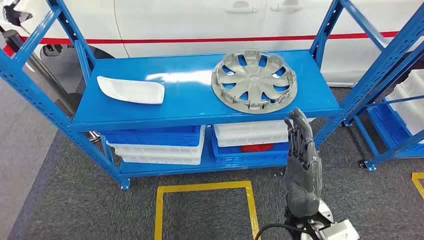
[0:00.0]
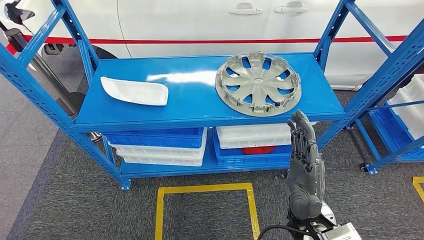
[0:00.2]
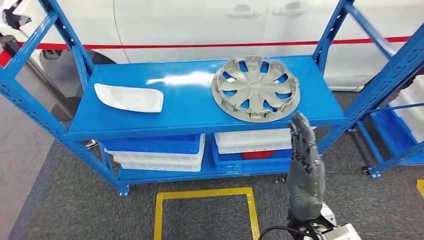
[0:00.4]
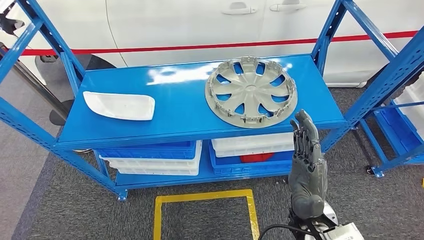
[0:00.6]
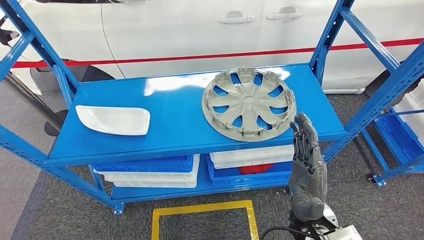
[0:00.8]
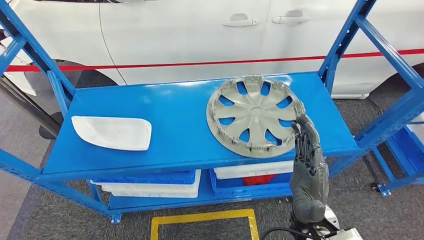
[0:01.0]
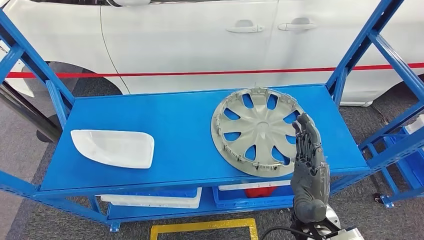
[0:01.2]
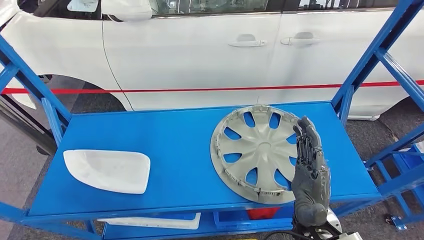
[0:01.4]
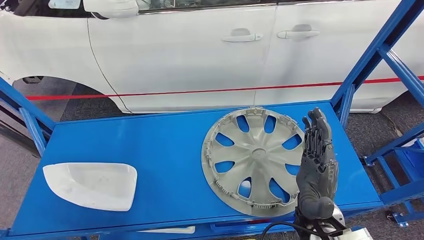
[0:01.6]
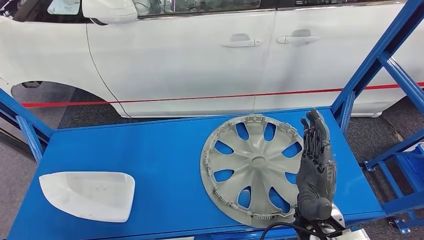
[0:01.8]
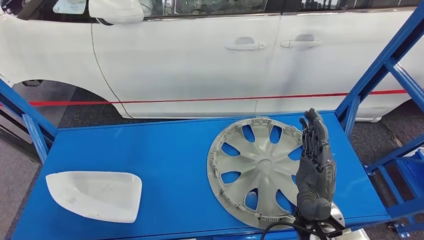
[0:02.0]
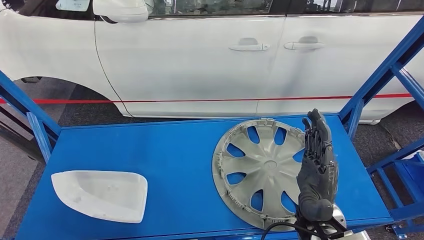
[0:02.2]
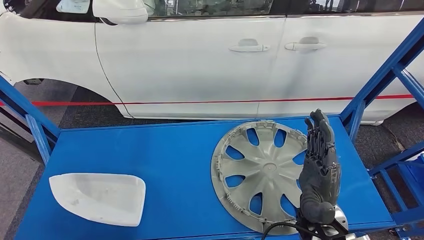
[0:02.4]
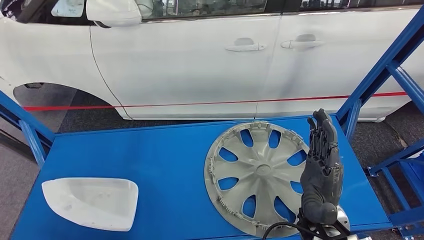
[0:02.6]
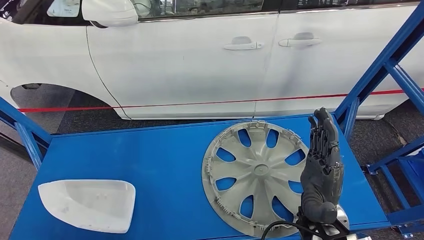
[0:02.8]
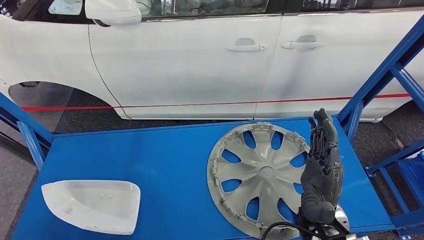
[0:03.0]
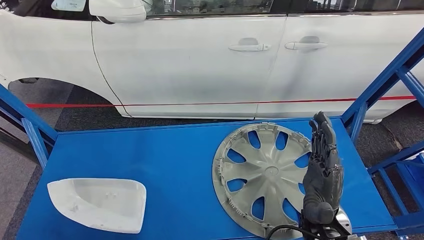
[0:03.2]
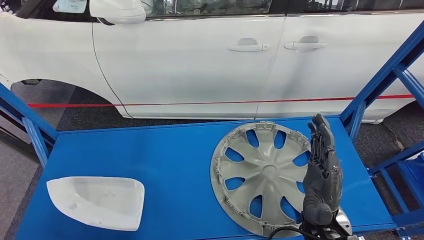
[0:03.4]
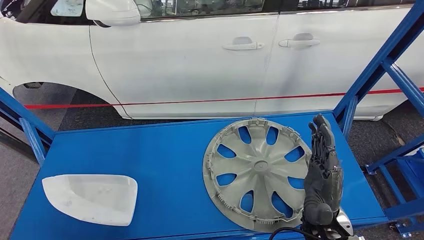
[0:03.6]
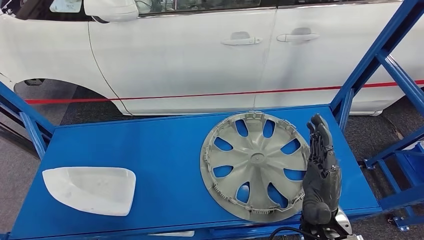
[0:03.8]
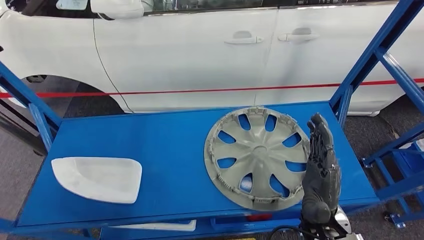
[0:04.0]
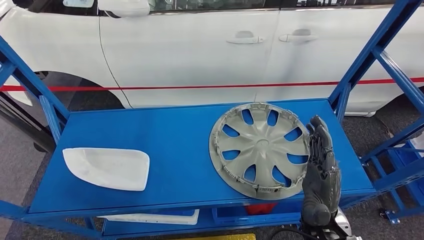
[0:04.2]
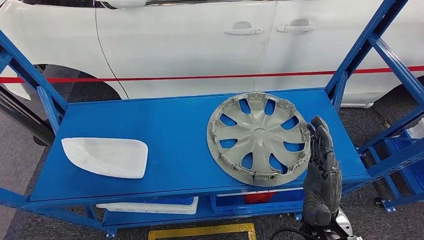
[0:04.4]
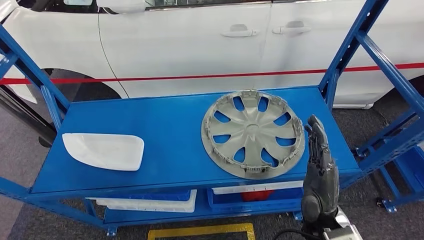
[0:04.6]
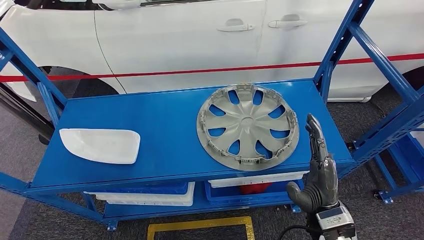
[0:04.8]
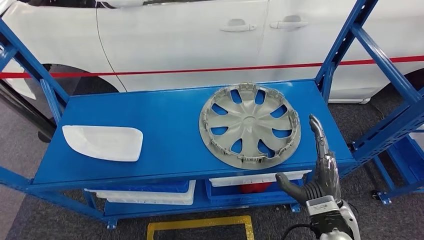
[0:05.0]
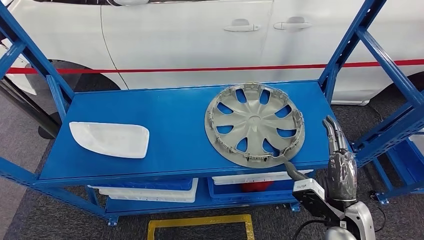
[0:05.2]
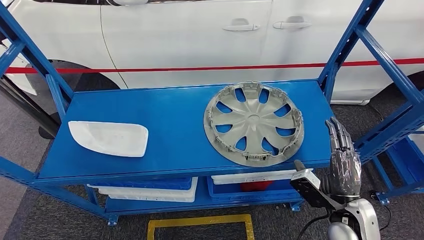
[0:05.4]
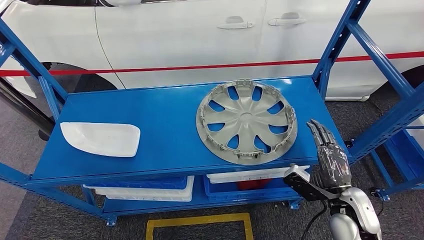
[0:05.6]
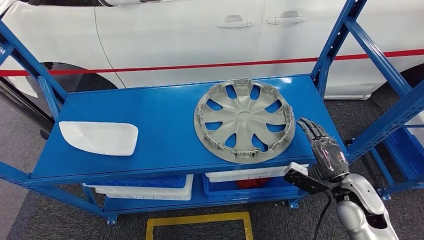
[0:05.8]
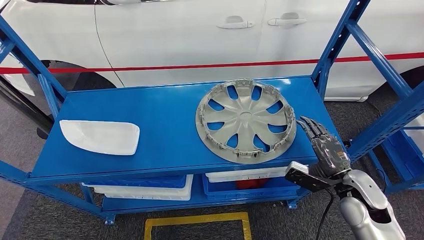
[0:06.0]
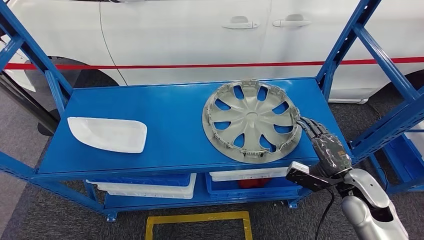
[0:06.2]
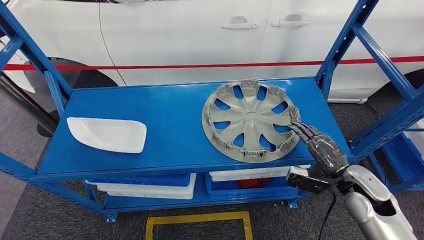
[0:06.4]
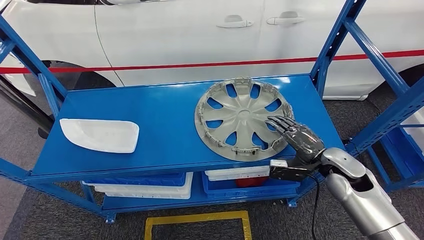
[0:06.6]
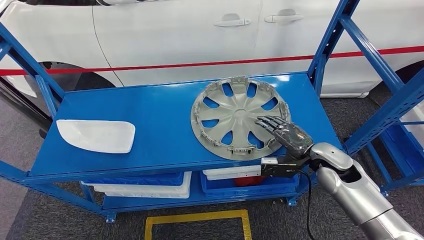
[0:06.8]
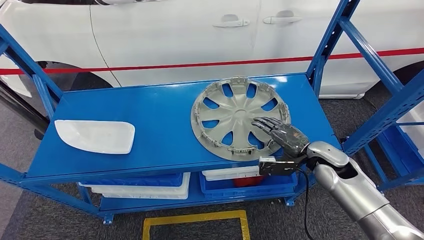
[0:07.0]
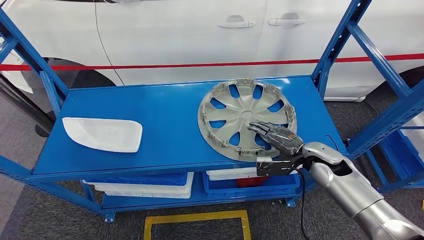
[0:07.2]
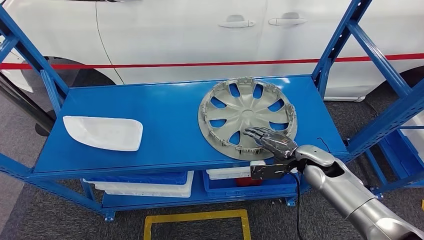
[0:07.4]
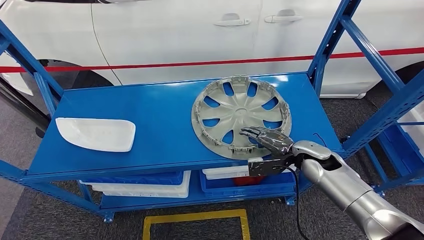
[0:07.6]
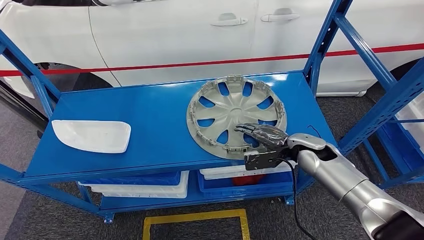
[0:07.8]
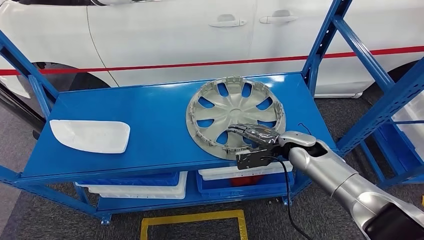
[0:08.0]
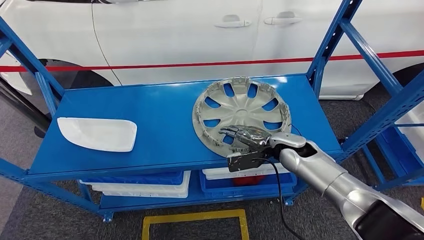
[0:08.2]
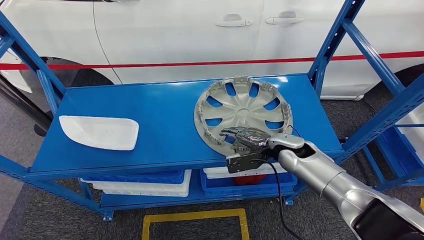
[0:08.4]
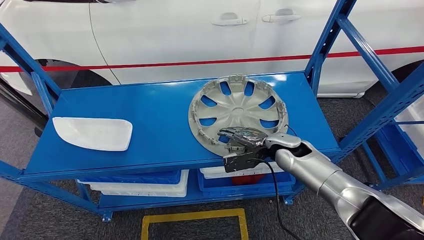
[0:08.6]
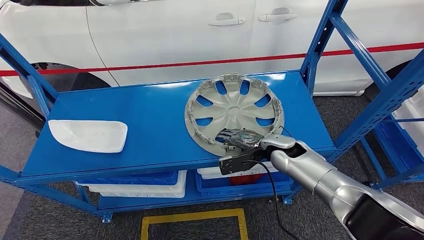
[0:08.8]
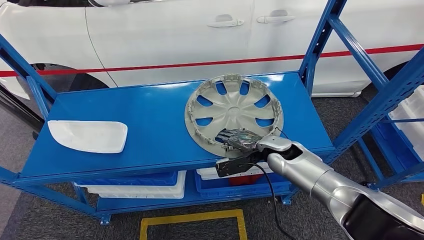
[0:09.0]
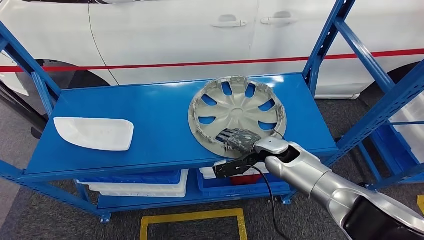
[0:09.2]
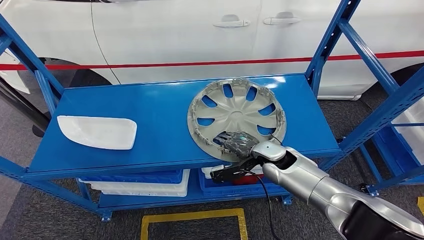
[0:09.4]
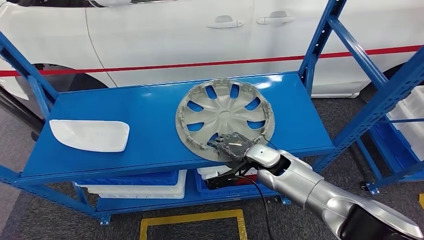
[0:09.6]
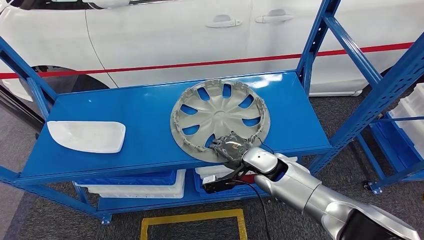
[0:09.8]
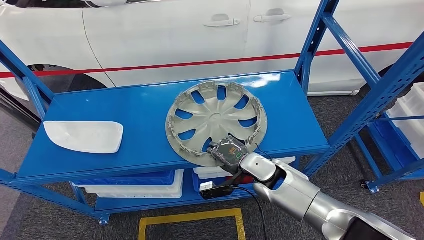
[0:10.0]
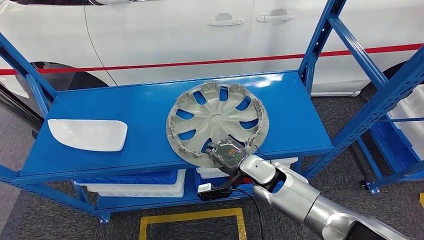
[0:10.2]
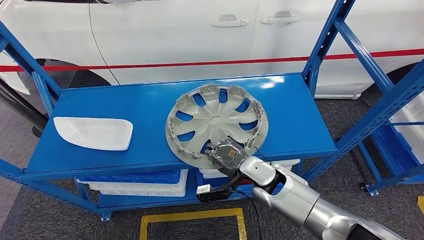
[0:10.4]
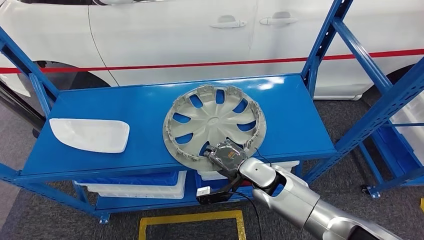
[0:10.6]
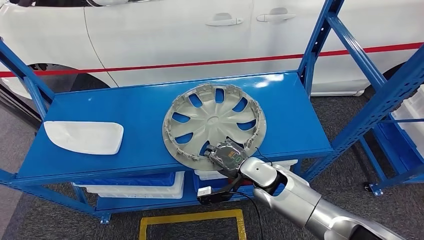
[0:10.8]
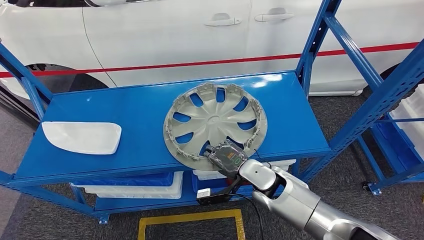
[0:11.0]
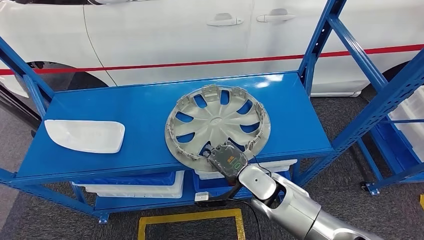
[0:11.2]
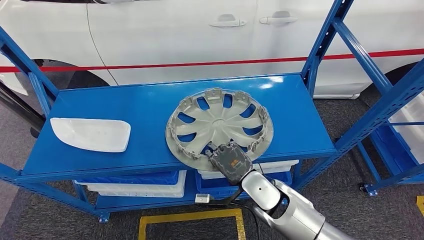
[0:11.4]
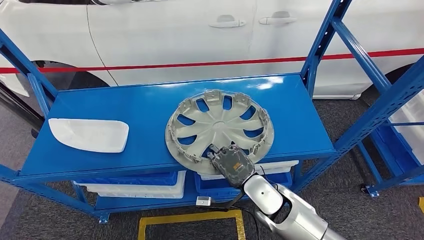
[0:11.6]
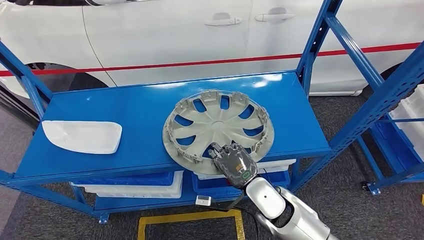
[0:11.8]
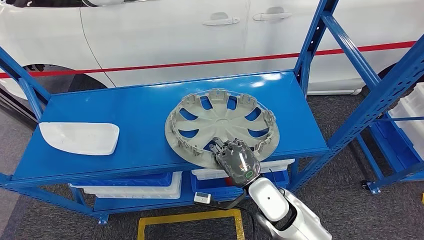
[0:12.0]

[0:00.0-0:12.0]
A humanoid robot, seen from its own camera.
Step, 0:00.0 to 0:10.6: Pick up the small component from the shelf.

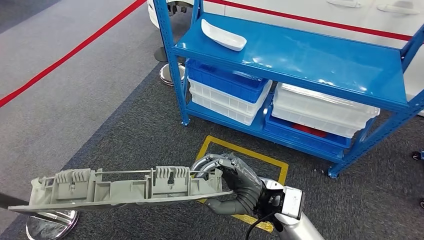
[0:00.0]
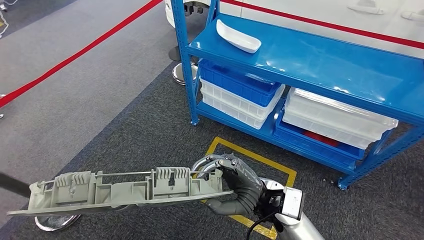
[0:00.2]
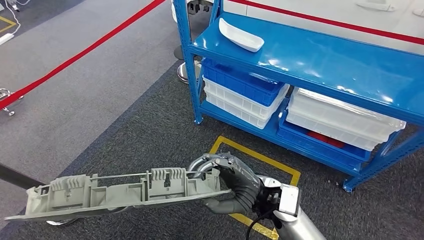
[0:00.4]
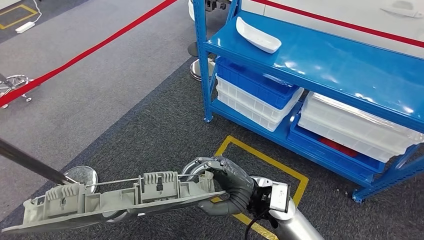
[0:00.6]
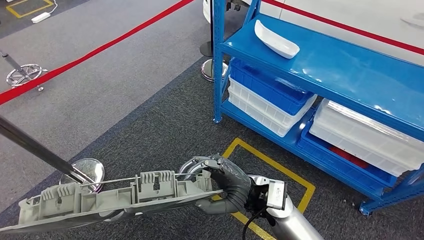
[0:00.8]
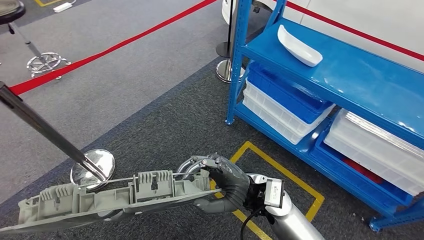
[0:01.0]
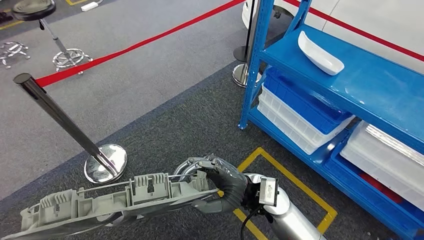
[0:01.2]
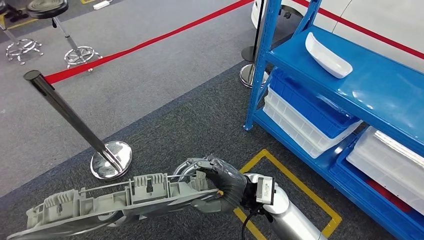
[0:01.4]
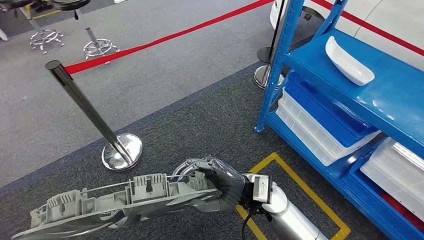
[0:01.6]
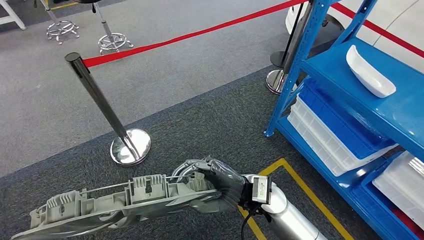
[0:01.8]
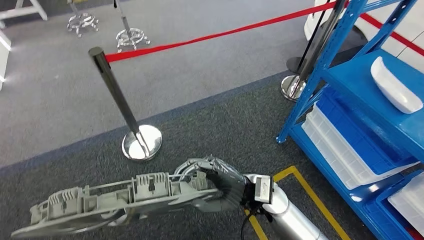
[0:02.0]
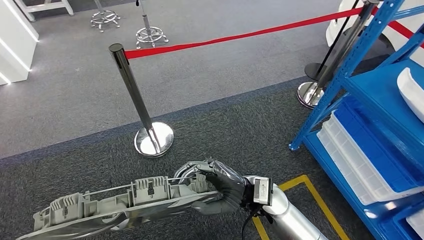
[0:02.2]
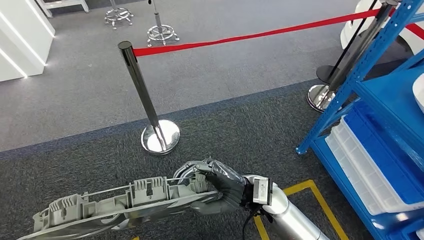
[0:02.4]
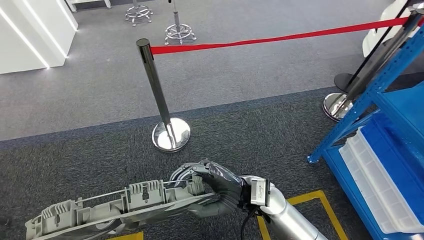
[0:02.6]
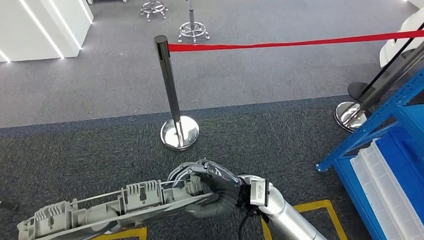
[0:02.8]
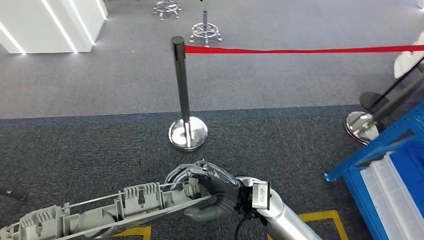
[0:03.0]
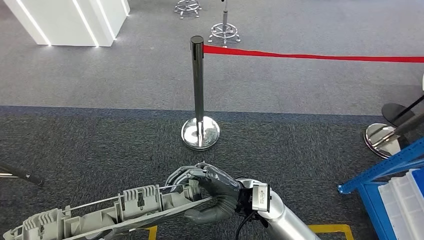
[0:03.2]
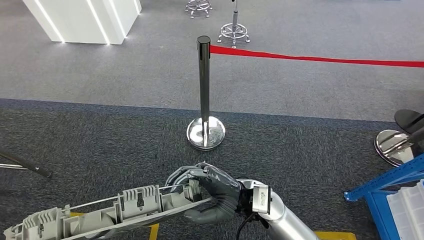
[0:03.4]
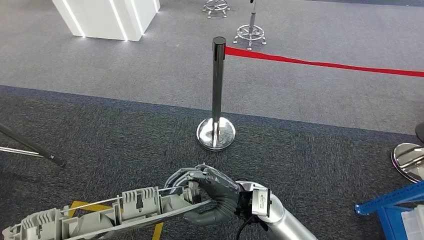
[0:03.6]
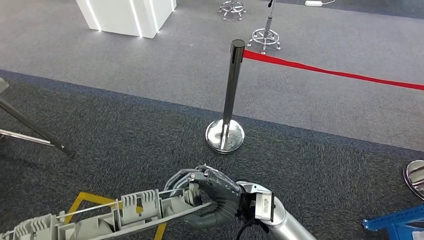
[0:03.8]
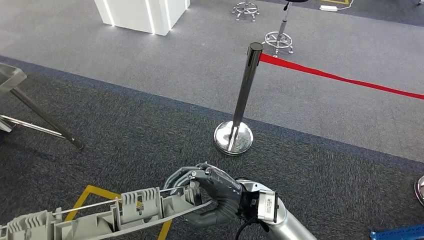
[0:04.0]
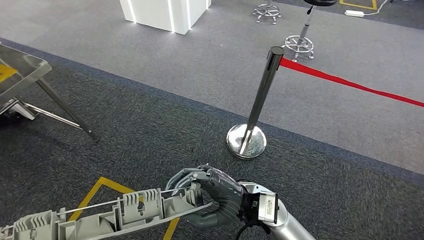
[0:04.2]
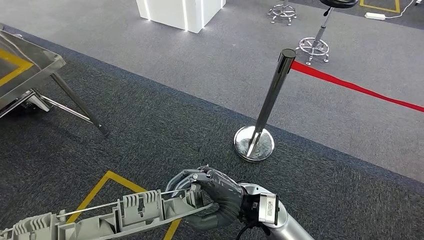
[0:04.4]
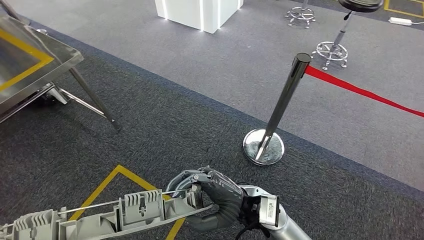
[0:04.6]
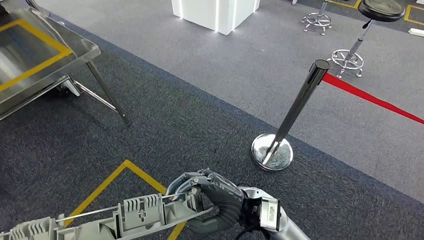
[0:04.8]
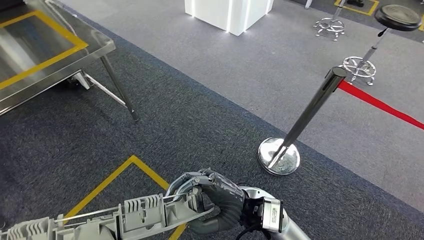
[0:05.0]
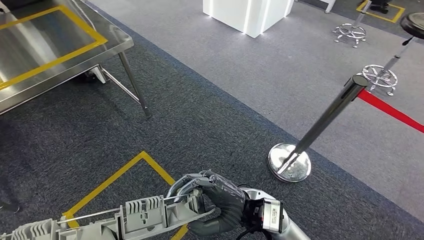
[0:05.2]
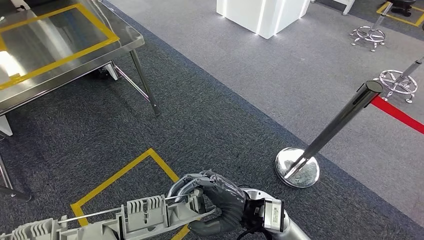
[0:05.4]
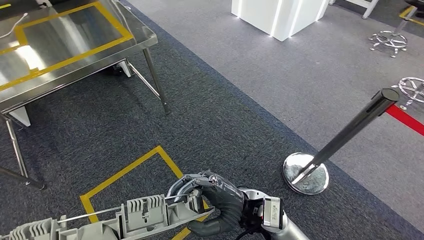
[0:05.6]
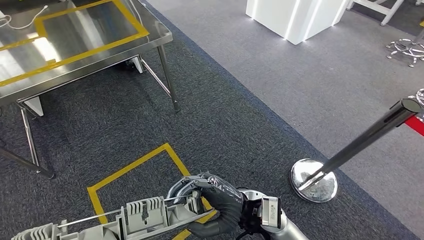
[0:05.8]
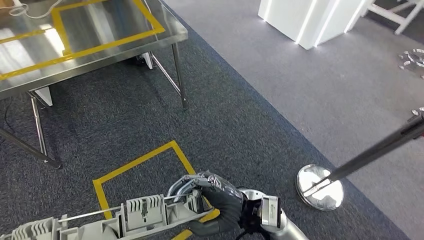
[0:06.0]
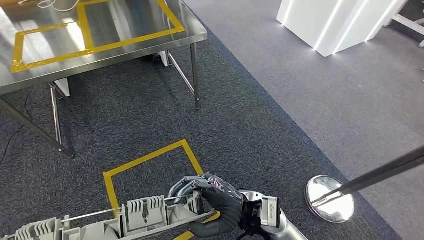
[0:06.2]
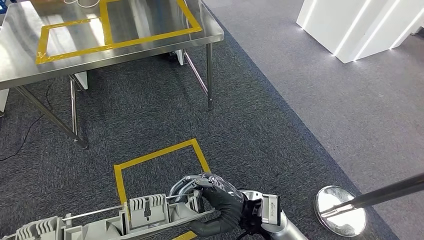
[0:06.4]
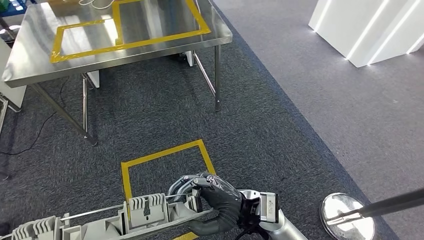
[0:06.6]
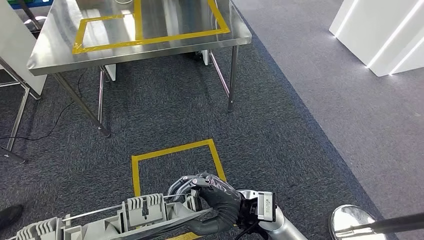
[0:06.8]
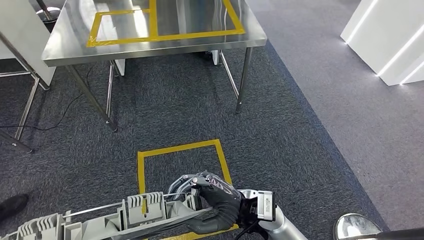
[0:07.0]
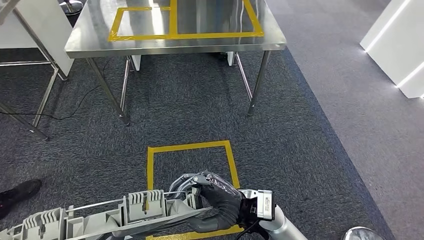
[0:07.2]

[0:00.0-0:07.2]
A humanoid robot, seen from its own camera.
Step, 0:00.0 to 0:07.0: Move the small component to the workbench.
